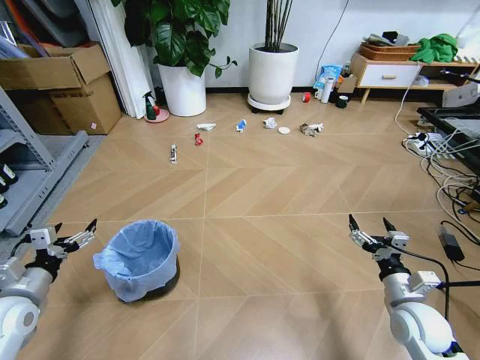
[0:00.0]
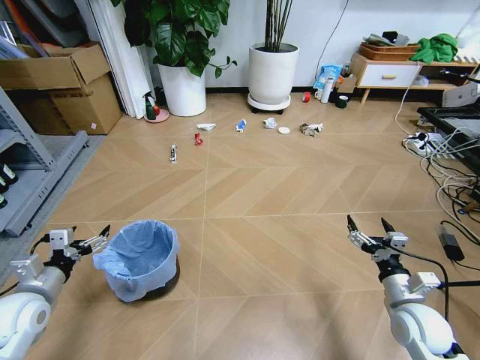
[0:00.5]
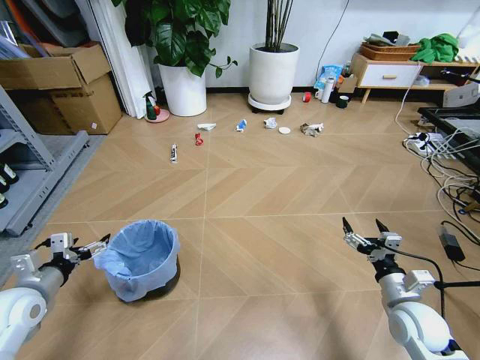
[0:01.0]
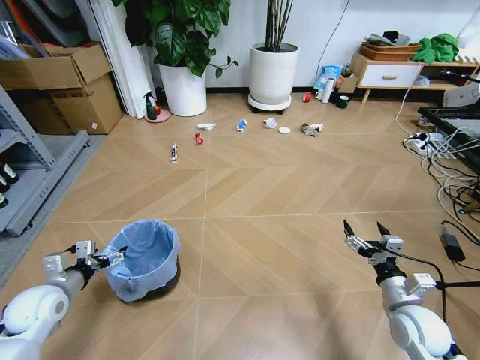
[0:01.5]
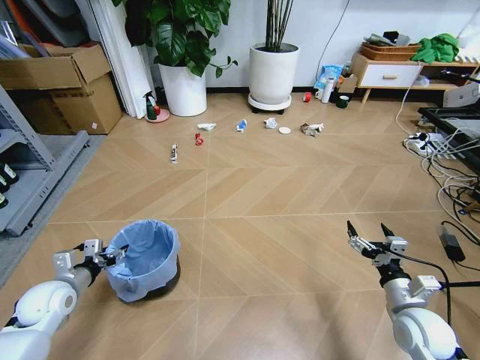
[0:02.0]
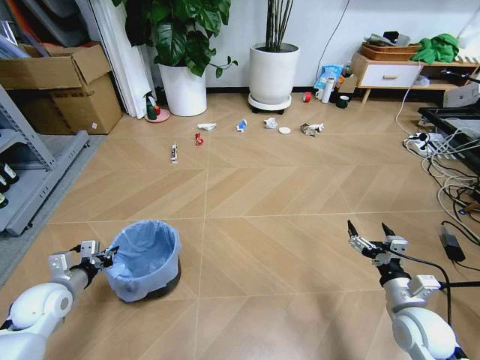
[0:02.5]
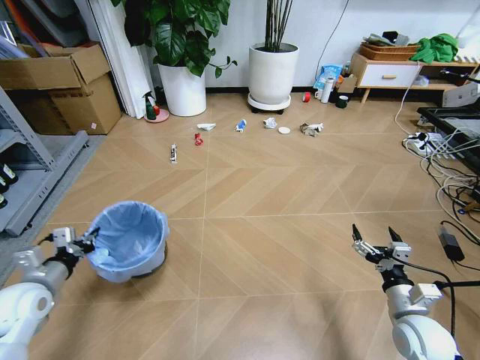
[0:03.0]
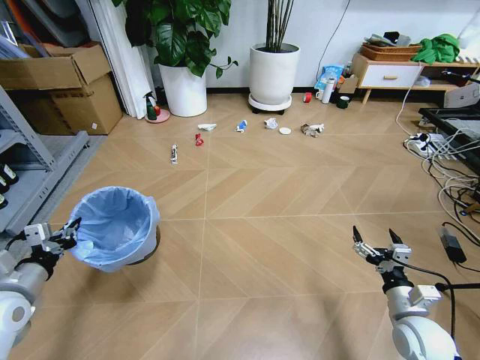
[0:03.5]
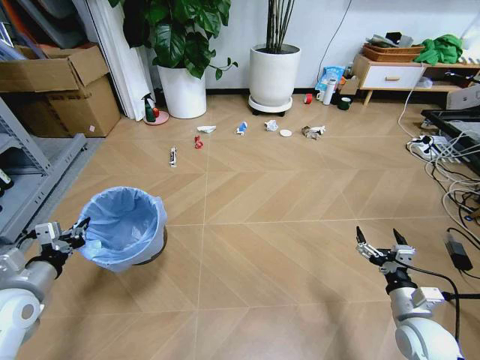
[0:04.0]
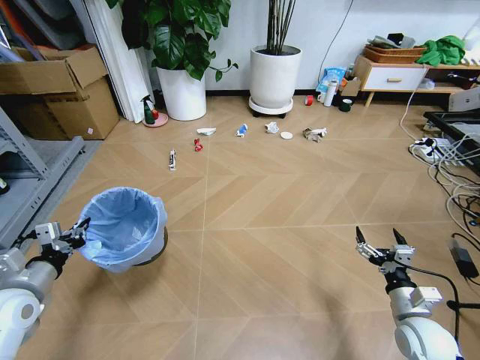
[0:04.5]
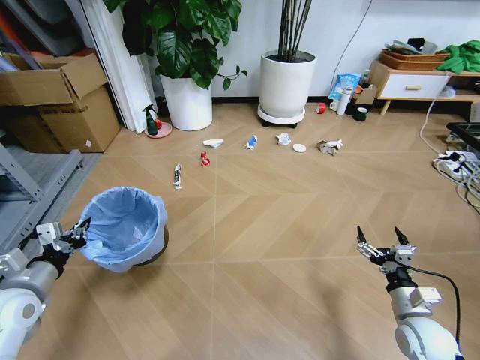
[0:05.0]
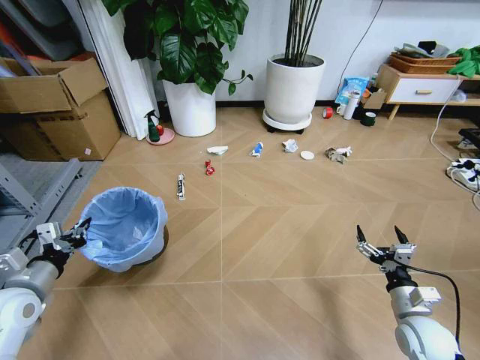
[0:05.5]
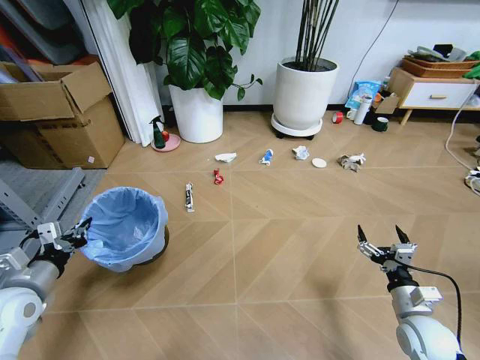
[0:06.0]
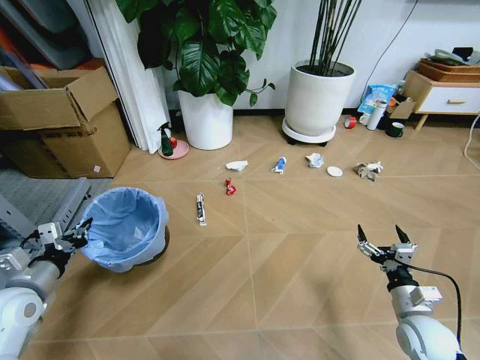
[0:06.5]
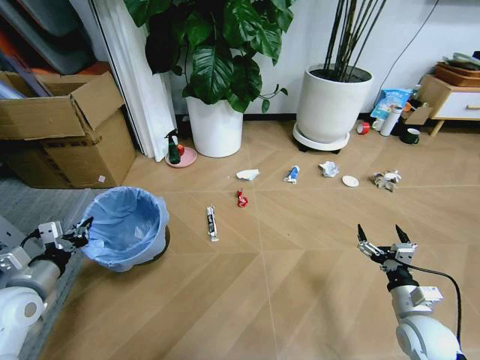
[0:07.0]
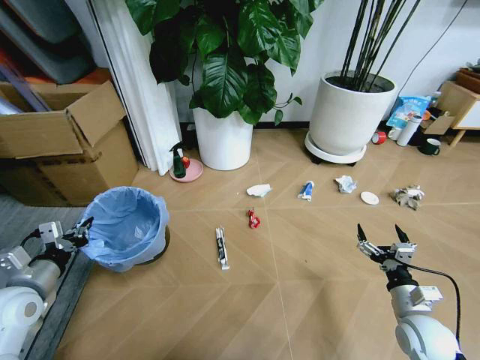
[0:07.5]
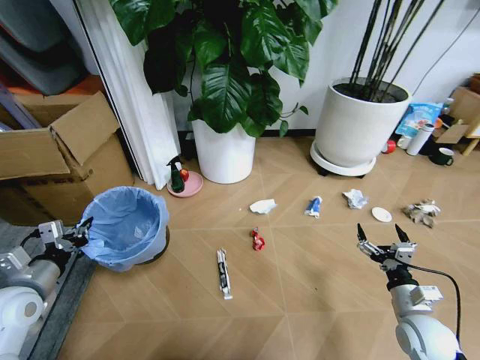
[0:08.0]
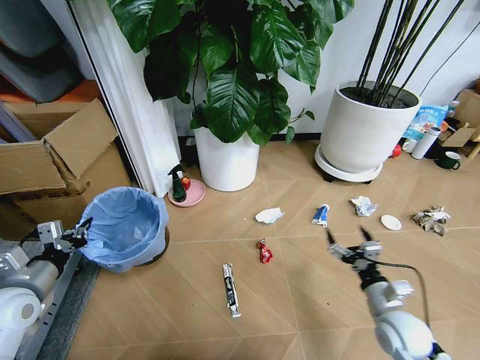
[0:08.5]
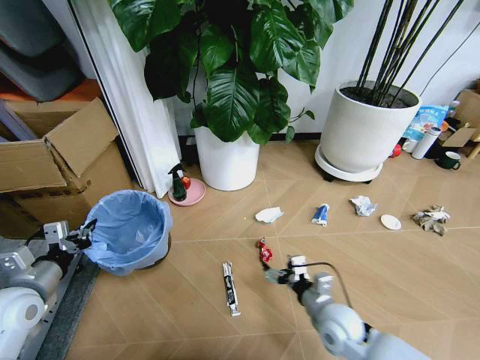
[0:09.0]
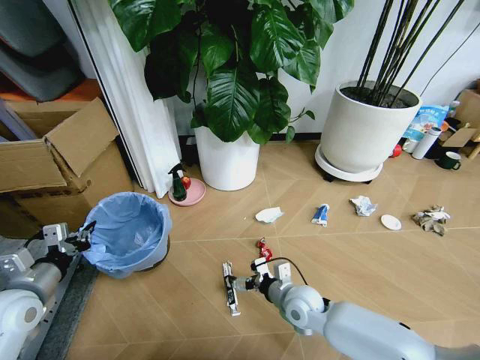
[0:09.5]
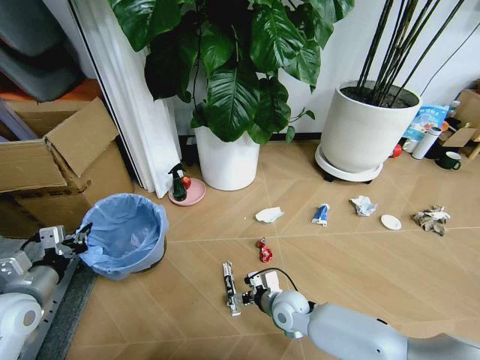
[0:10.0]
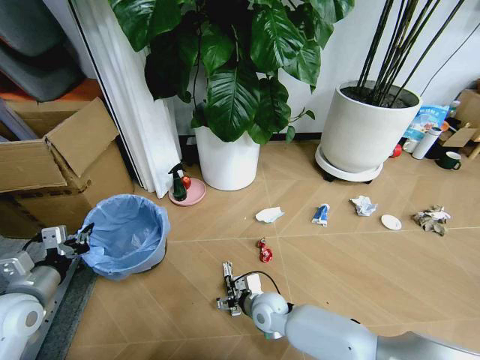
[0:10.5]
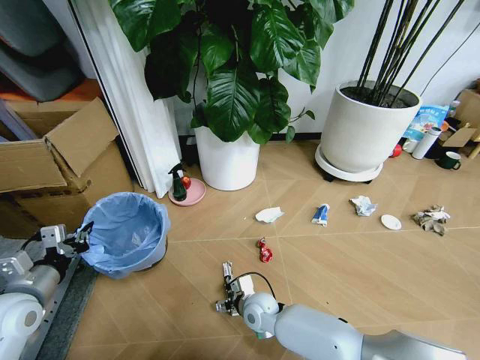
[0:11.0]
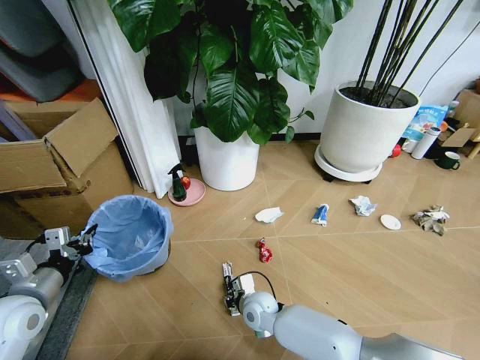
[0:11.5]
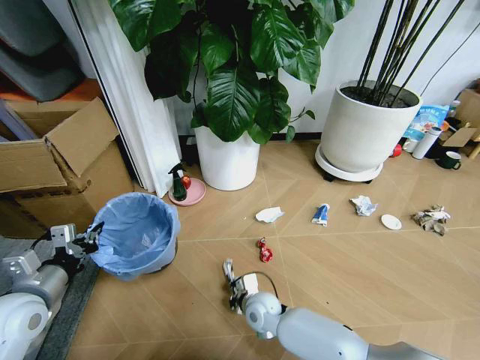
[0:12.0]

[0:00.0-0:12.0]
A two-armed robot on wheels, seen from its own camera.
Task of the whole recording: Pick up the trash bin and place the garbage on the floor into it.
0:02.0 to 0:04.0: The left gripper moves upward and backward, about 10 cm, and closes up.
0:08.0 to 0:10.0: The right gripper is displaced to the left by roughly 25 cm.
0:10.0 to 0:12.0: The right gripper moves to the left, roughly 5 cm, and closes up.

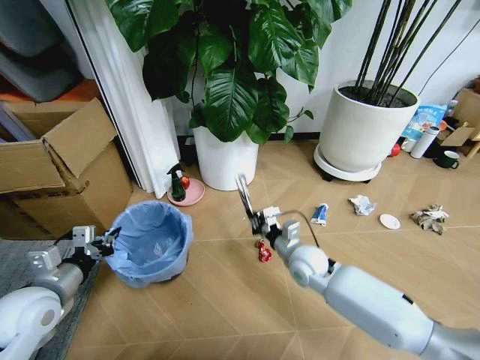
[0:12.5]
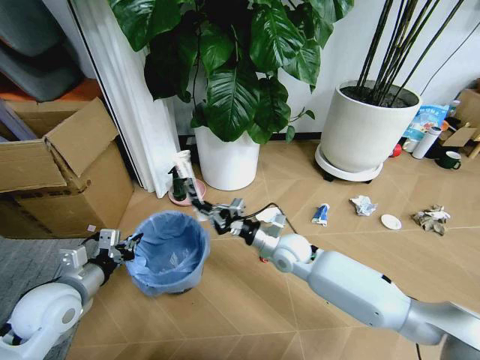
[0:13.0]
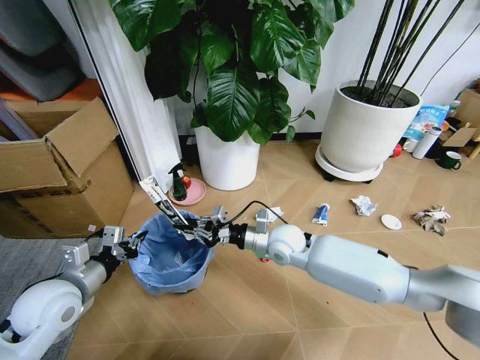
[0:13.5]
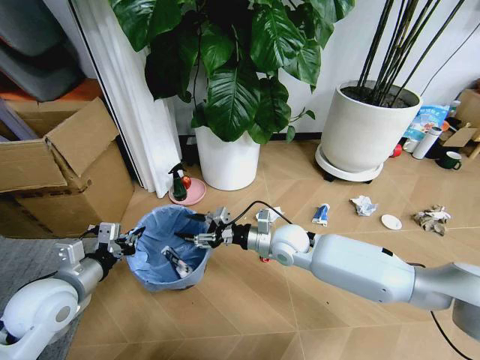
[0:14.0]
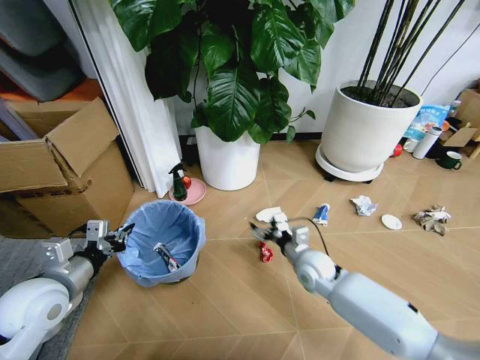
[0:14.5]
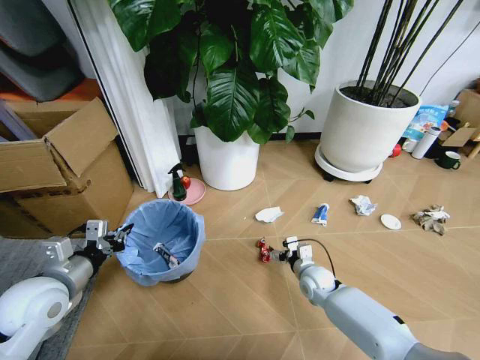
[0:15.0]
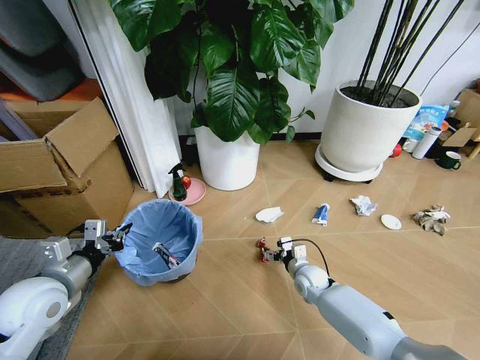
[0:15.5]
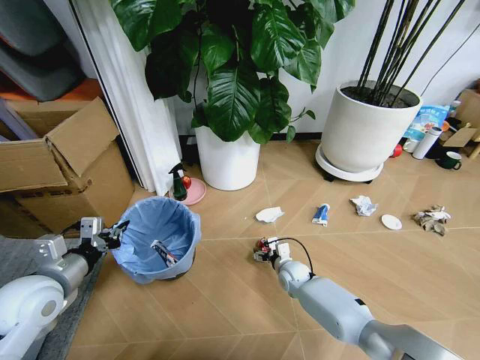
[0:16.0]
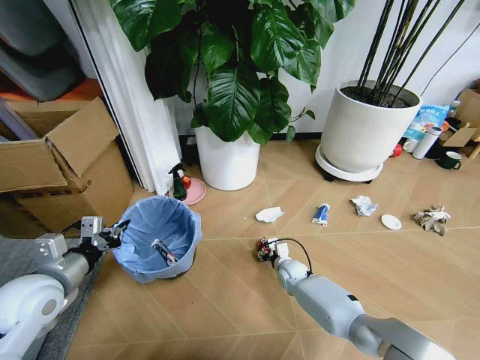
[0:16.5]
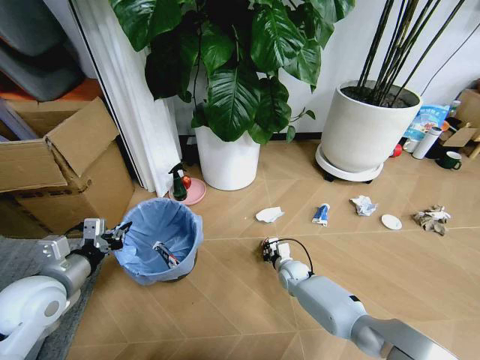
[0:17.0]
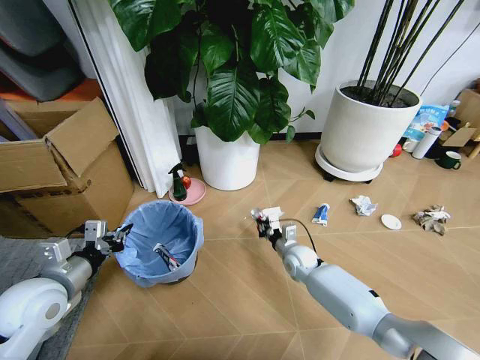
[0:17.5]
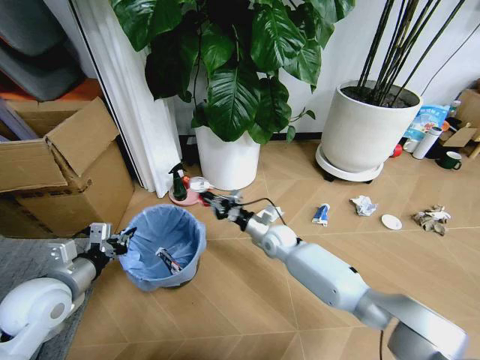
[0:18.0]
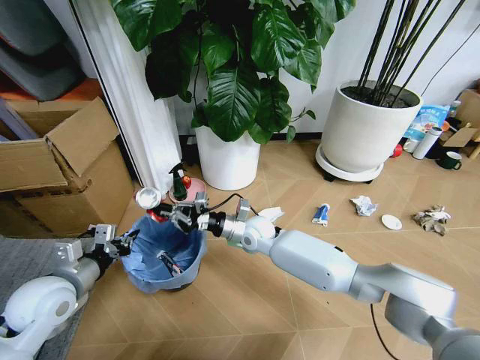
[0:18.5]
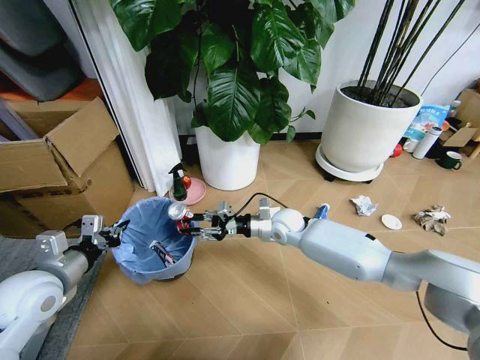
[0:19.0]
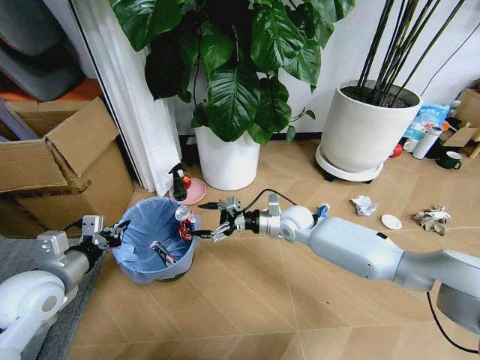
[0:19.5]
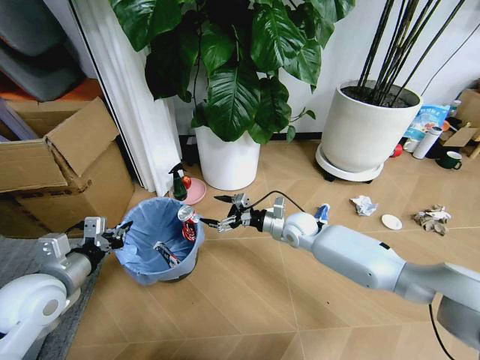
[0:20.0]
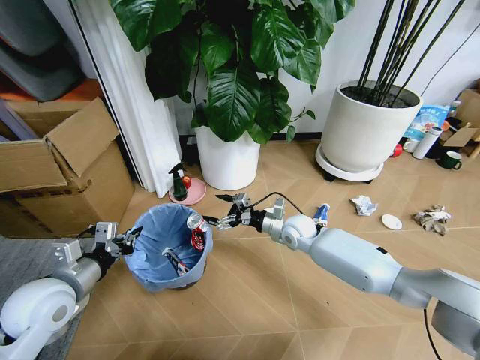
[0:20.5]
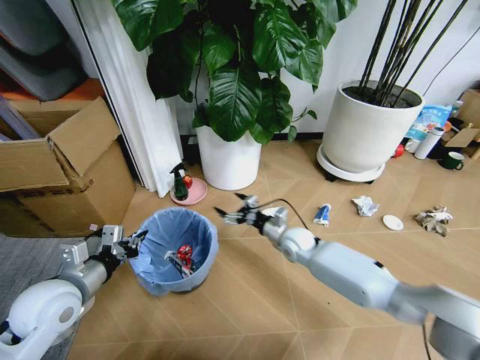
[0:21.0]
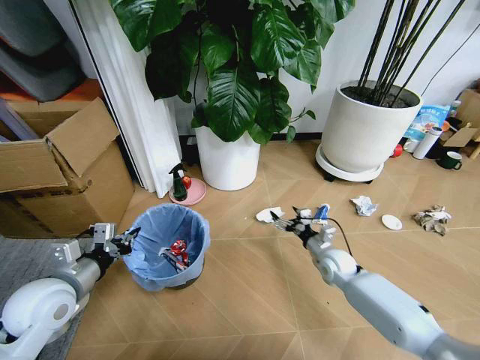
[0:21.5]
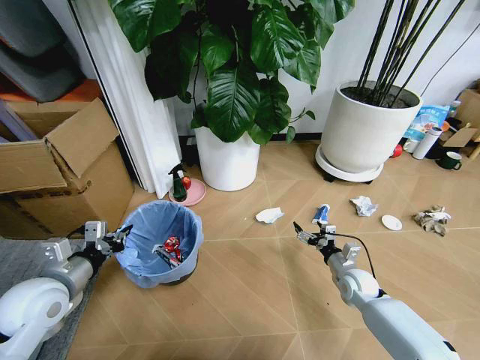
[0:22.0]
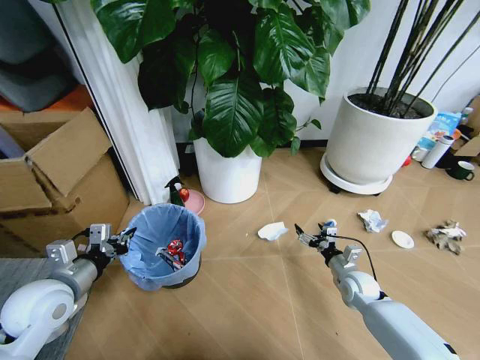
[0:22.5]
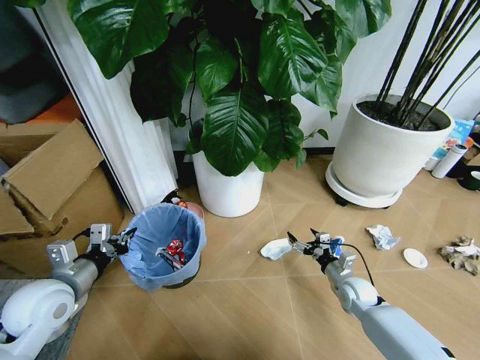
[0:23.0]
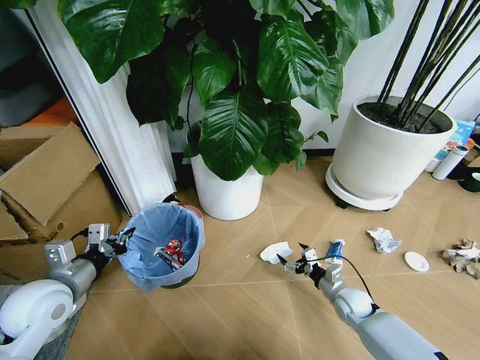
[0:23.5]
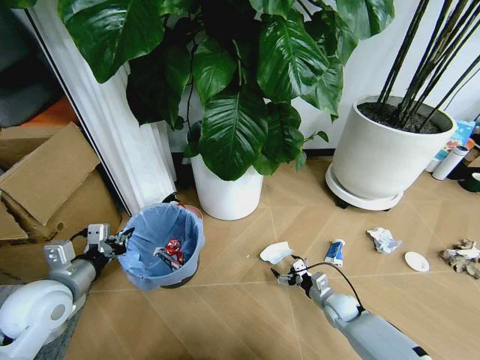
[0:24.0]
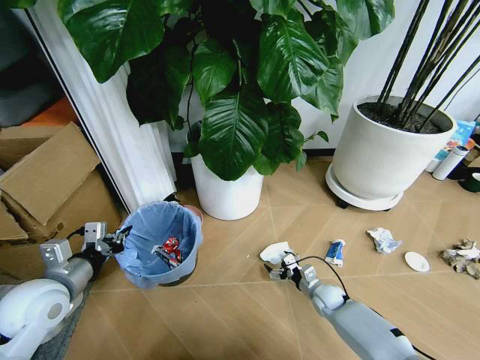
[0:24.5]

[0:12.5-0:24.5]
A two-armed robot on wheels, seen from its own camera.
Task of the whole recording: Pick up the trash bin and place the garbage on the floor into it.
0:12.5 to 0:14.5: The right gripper goes to the left and returns, roughly 5 cm each way, and opens up.
0:14.5 to 0:16.5: The right gripper is displaced downward by roughly 15 cm, and closes up.
0:16.5 to 0:18.5: The right gripper goes about 25 cm upward and to the left, and closes.
0:18.5 to 0:20.5: The right gripper travels to the right by approximately 10 cm, and opens.
0:20.5 to 0:22.5: The right gripper goes roughly 25 cm to the right, backward and downward.
0:22.5 to 0:24.5: The right gripper goes approximately 10 cm downward and to the left.

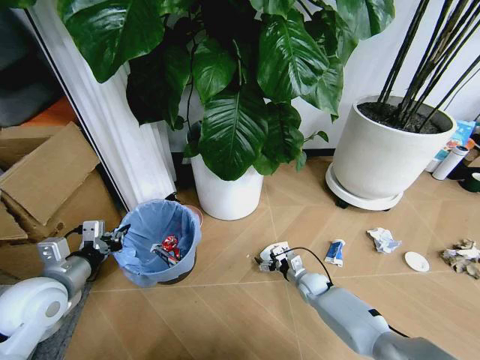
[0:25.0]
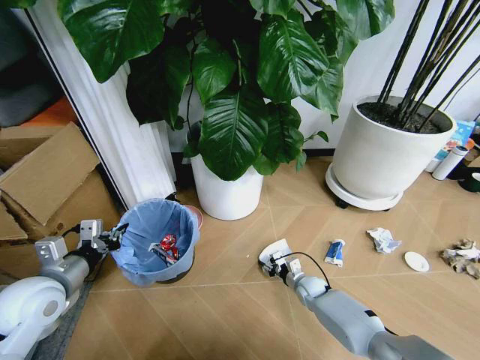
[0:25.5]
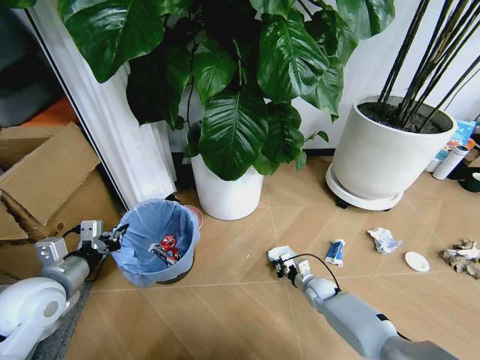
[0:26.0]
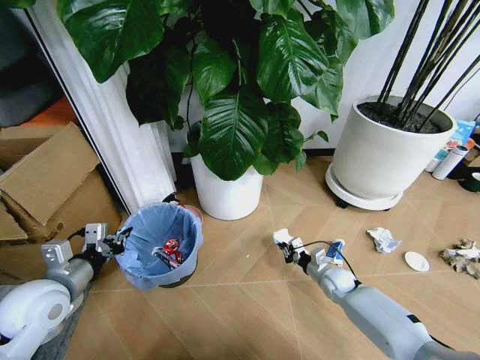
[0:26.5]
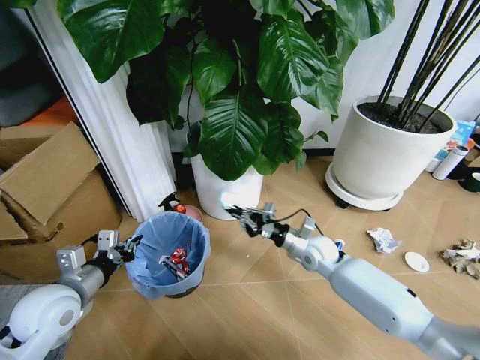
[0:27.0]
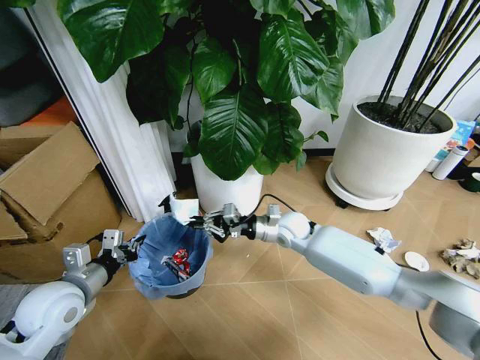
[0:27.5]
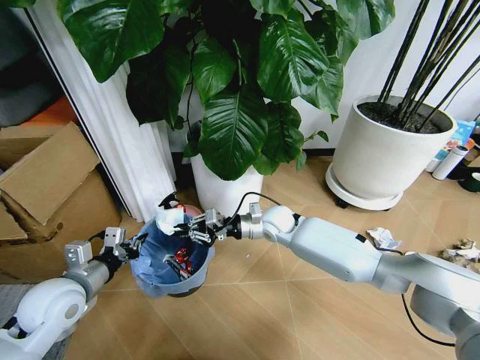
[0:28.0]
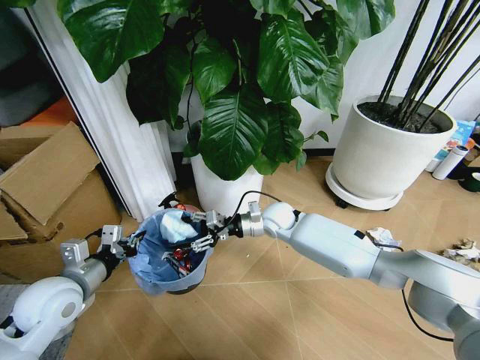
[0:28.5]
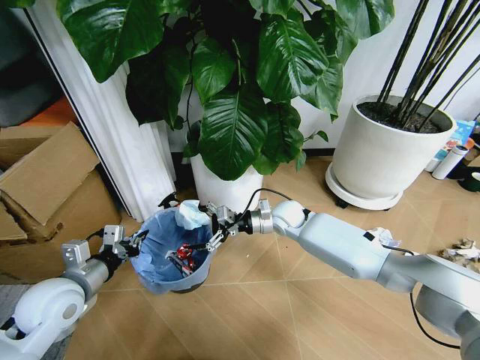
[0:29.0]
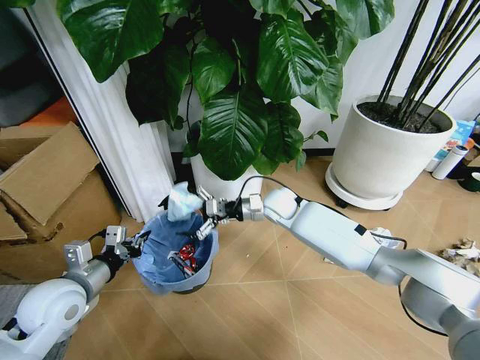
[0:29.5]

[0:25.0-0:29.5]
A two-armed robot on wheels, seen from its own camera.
Task of the whole recording: Pick up the trash bin and place the garbage on the floor into it.
0:25.0 to 0:27.0: The right gripper shifts approximately 20 cm upward, and closes up.
0:27.0 to 0:29.5: The right gripper is displaced to the left, forward and upward by some 15 cm, and opens up.
